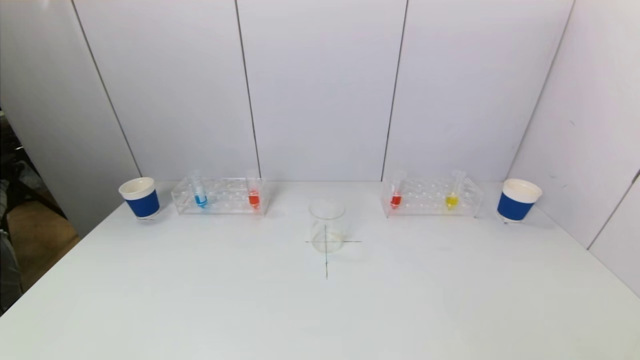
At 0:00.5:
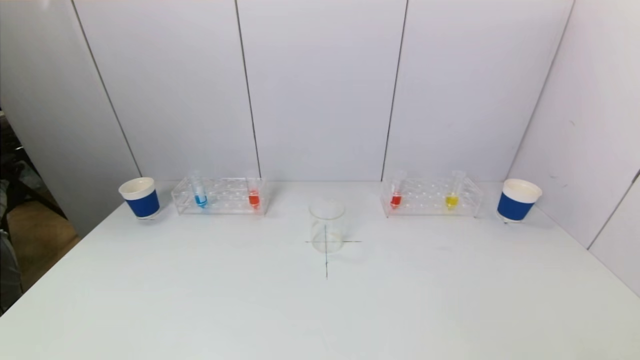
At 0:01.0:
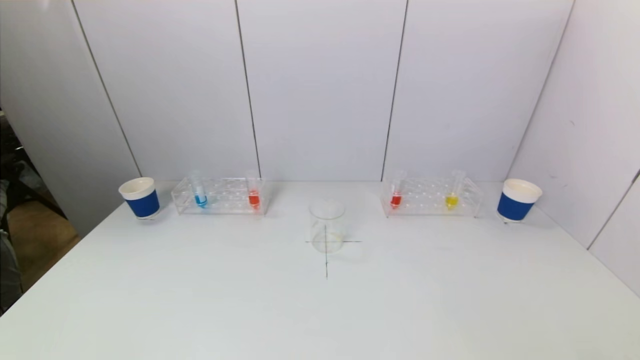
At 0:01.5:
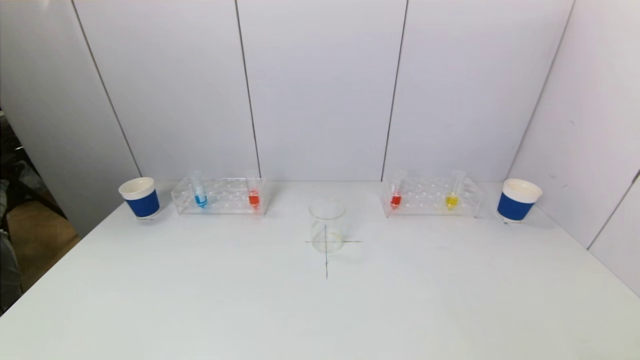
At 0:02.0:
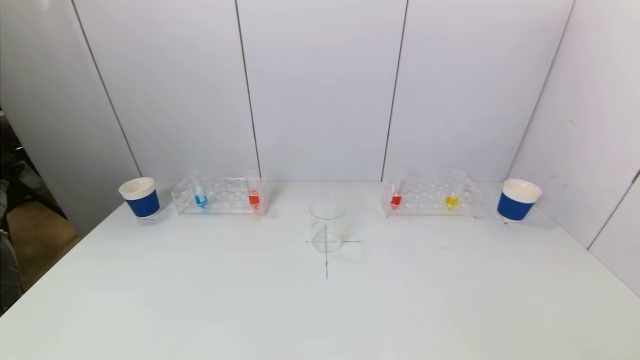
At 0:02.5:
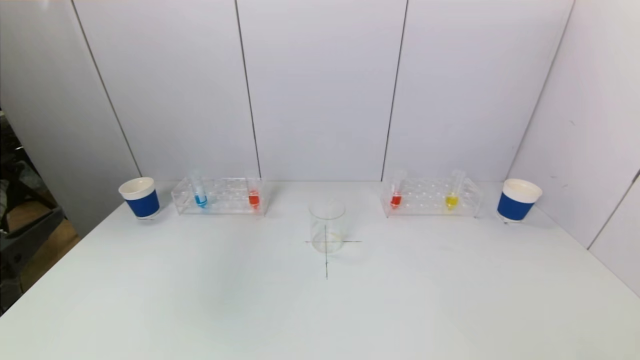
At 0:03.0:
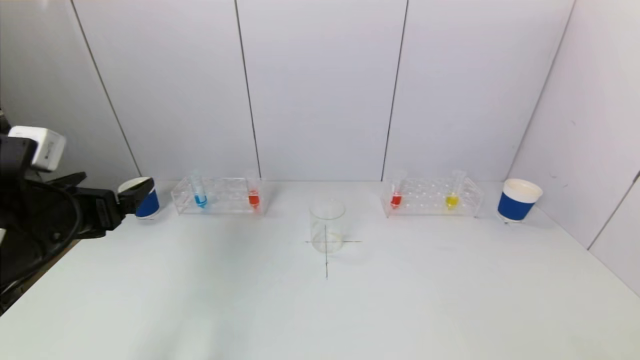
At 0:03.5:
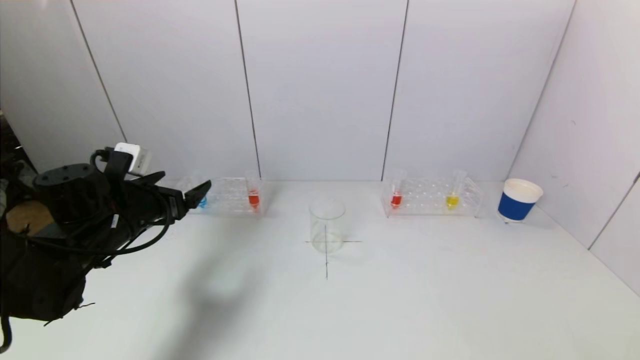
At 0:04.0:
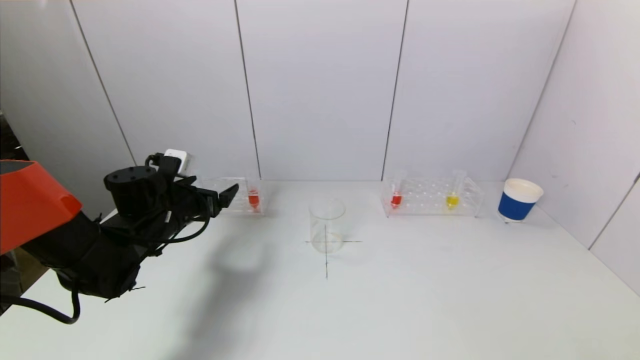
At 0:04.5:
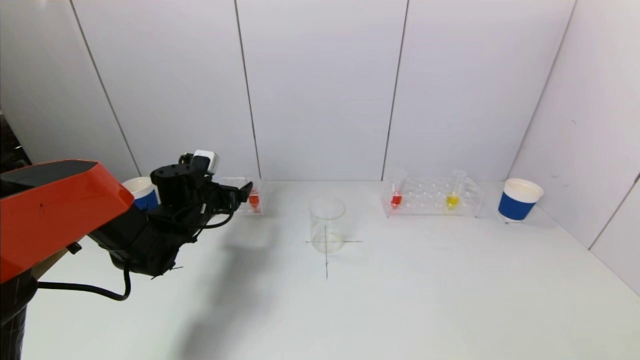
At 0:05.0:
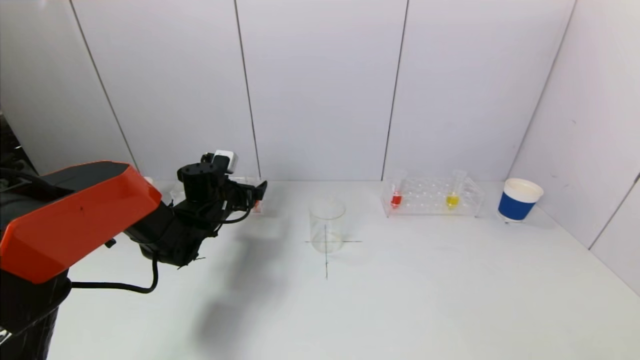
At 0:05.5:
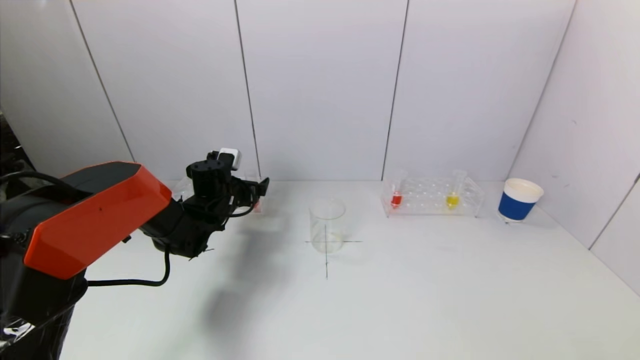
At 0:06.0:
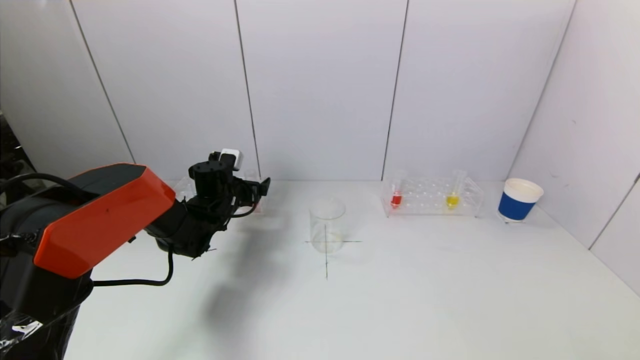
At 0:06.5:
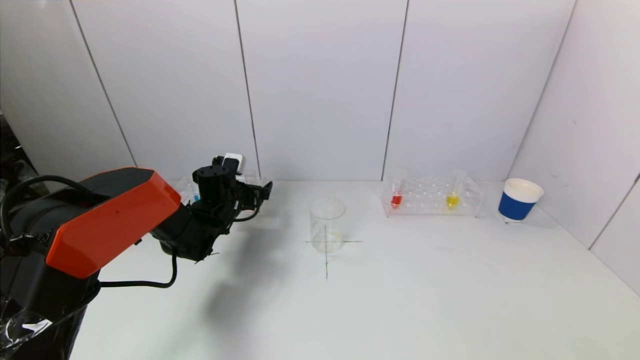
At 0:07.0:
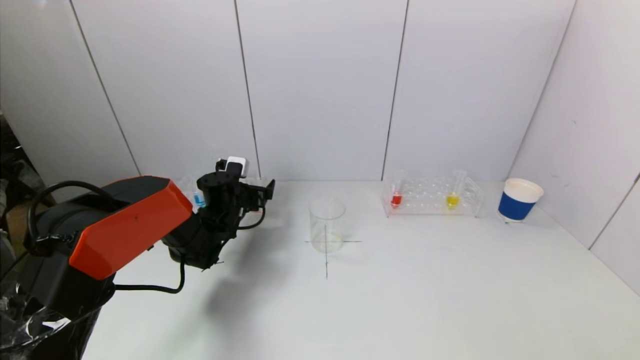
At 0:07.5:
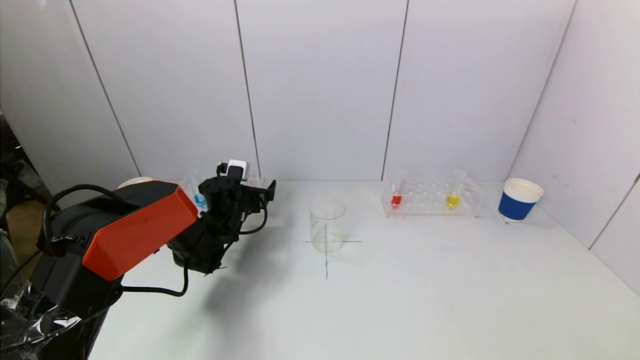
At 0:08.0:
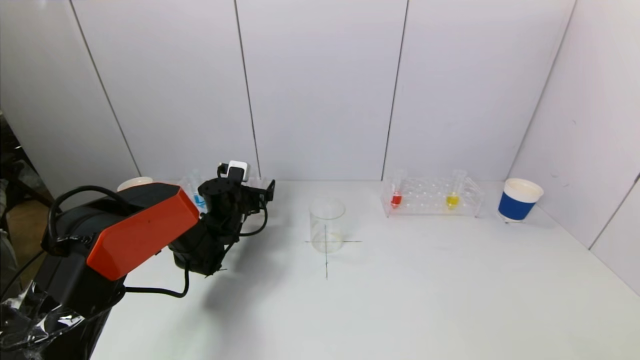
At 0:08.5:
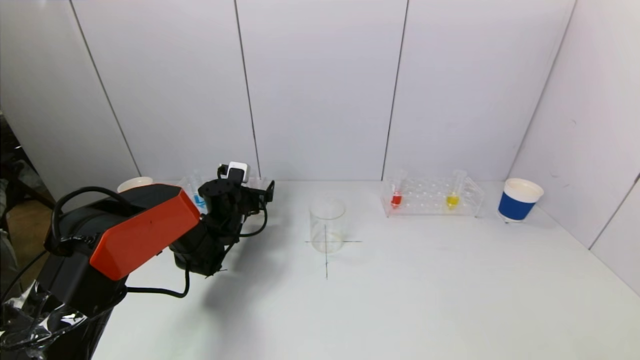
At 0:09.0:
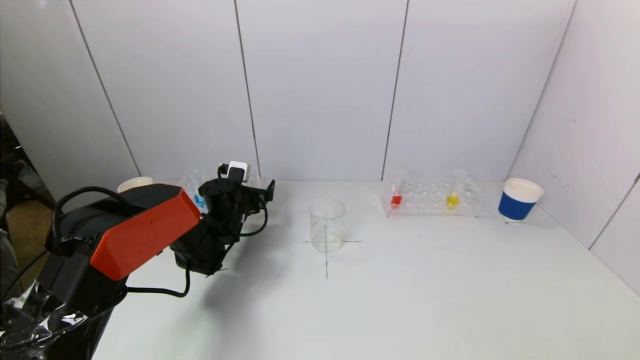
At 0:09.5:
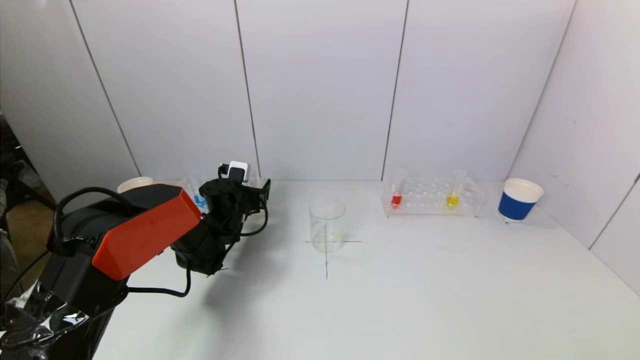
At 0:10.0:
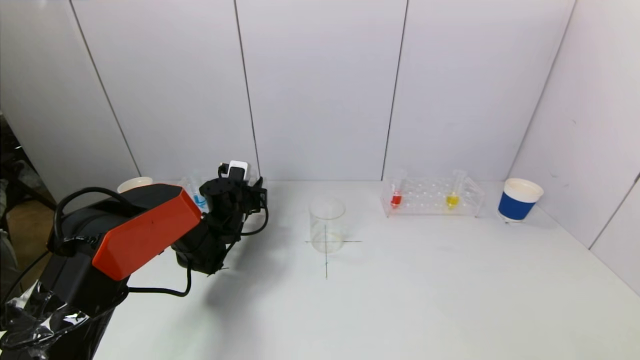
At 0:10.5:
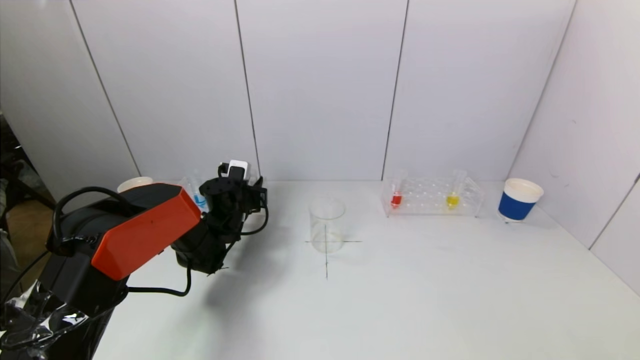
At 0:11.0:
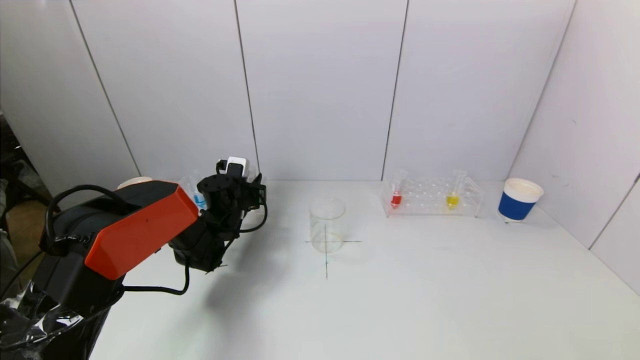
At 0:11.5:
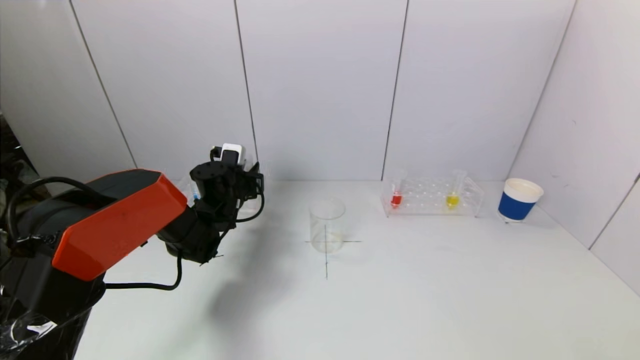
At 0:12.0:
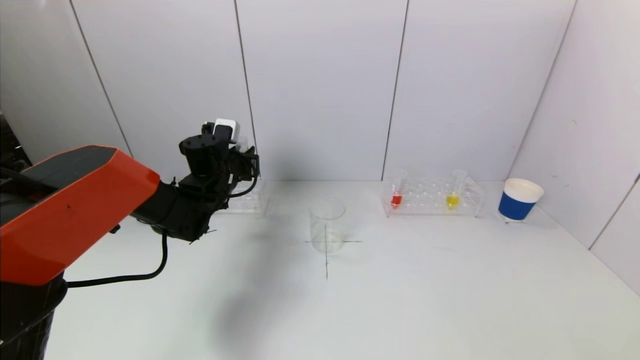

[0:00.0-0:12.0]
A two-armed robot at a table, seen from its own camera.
Task of the whole recording: pick up a test tube with pigment on left test tube rack and a test tube with pigment on right test tube rack by grippers and pour them into the beaker.
Step, 0:00.0 to 0:10.0: Grasp the red reagent with the left gripper.
0:02.0 to 0:04.0: The left gripper moves forward, approximately 40 cm.
0:04.0 to 0:06.0: The left gripper is displaced forward and to the right by approximately 10 cm.
0:06.0 to 0:08.0: The grippers make only small movements.
0:08.0 to 0:10.0: The left gripper closes.
0:10.0 to 0:12.0: The left gripper goes roughly 10 cm upward.

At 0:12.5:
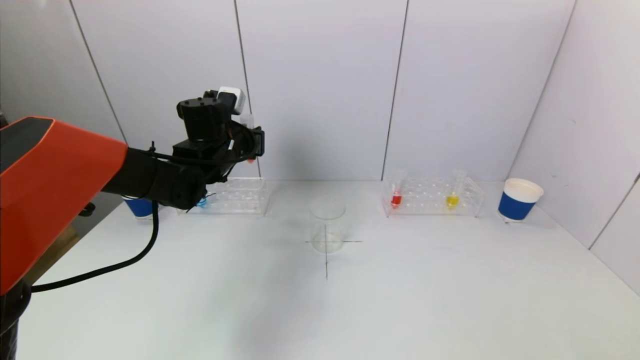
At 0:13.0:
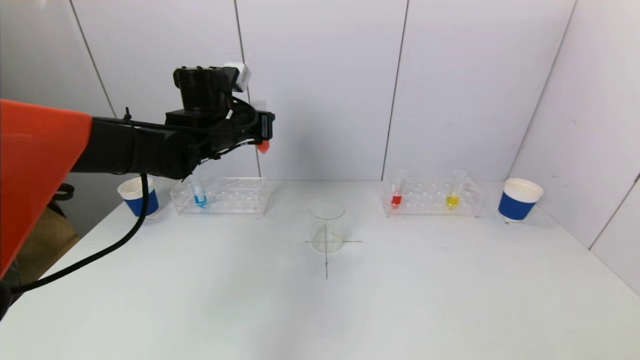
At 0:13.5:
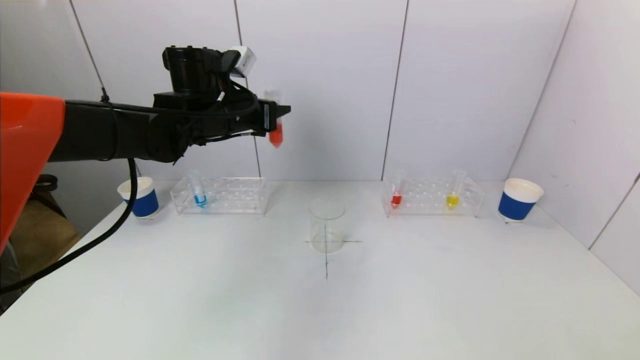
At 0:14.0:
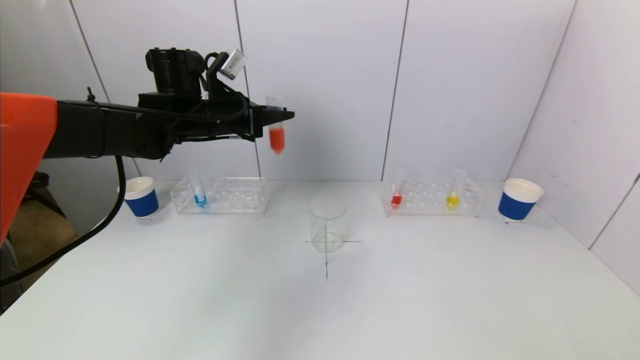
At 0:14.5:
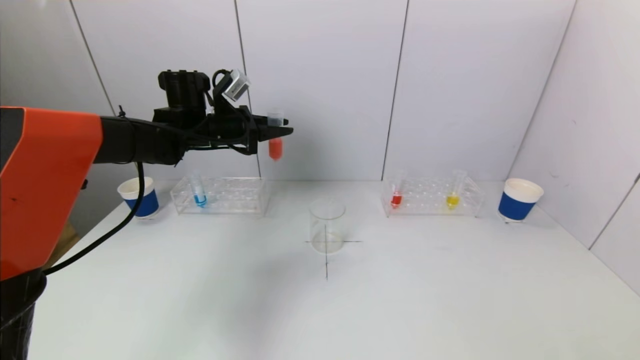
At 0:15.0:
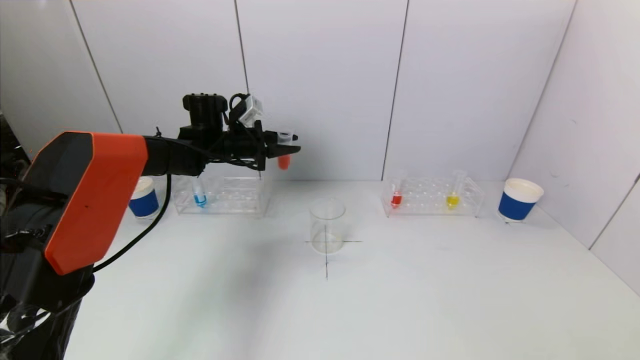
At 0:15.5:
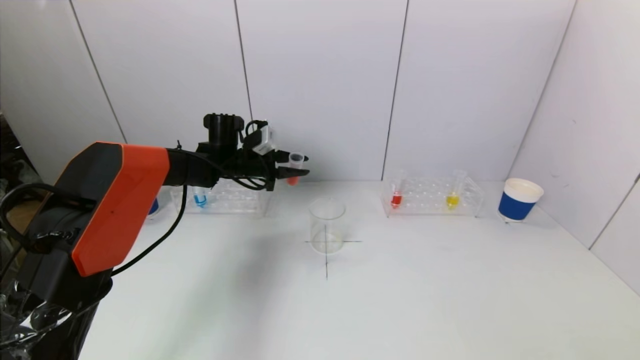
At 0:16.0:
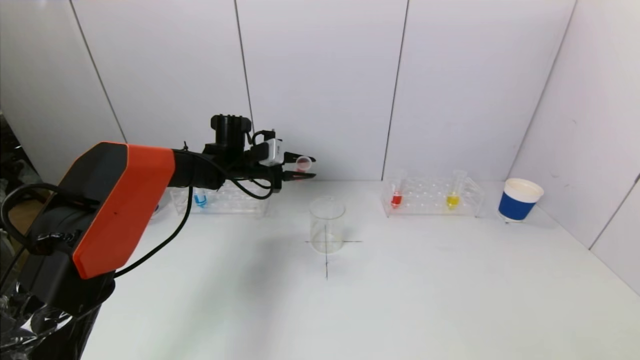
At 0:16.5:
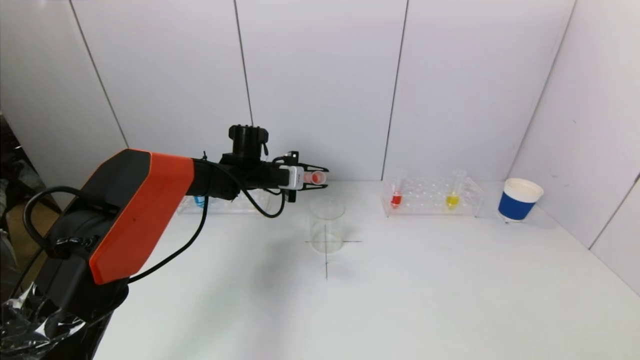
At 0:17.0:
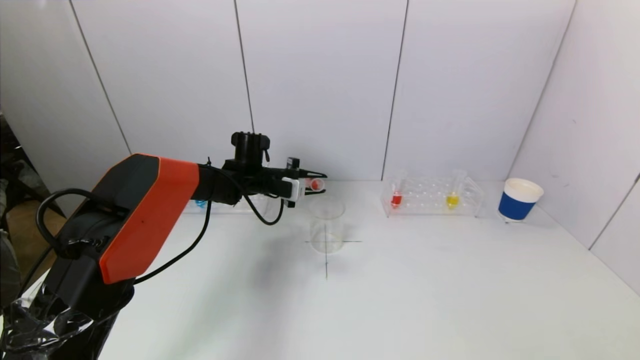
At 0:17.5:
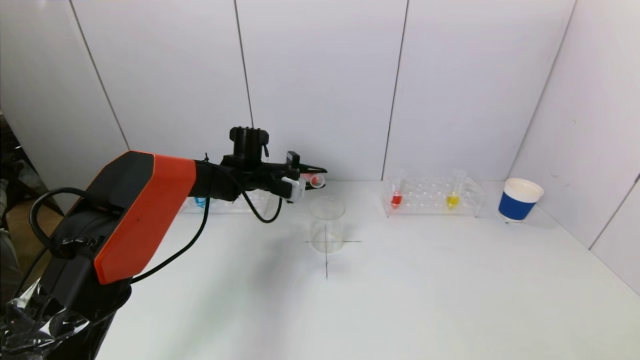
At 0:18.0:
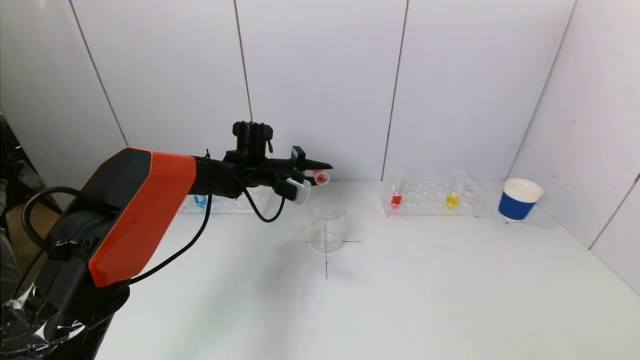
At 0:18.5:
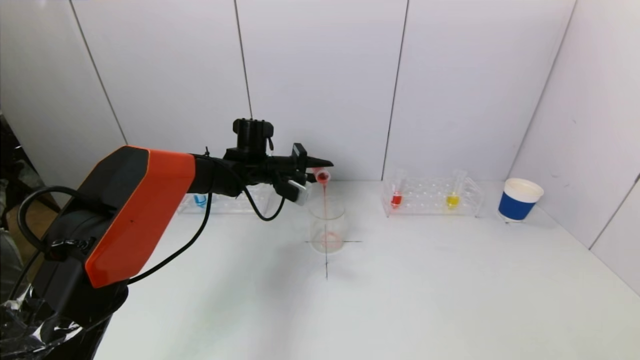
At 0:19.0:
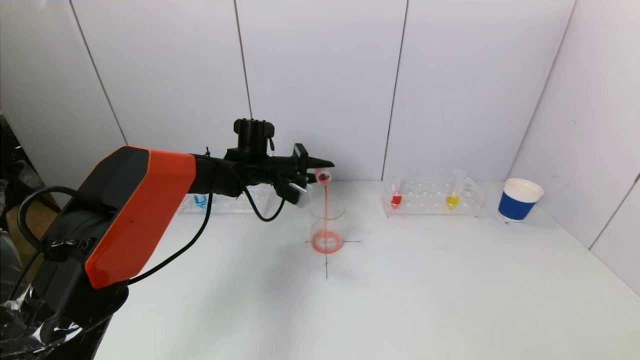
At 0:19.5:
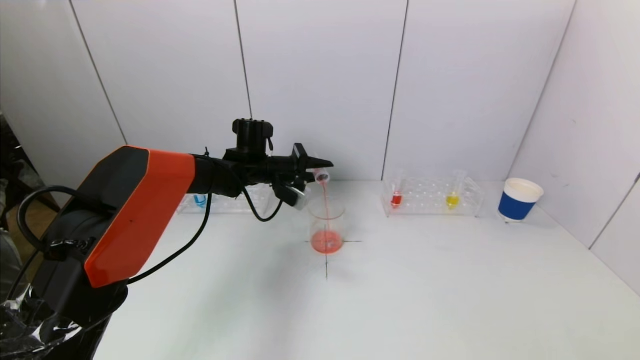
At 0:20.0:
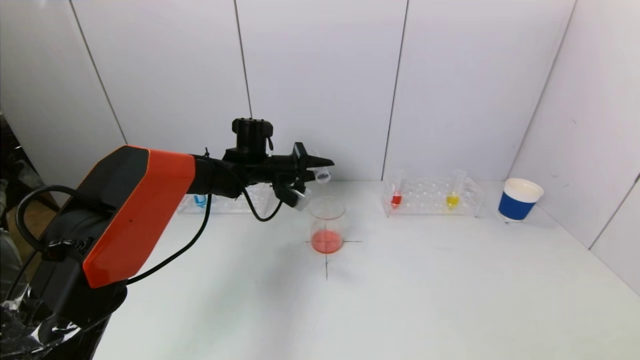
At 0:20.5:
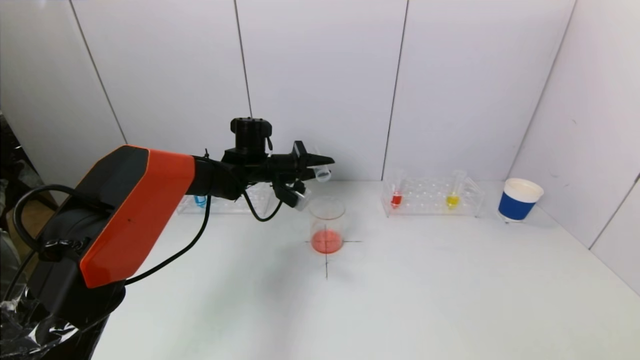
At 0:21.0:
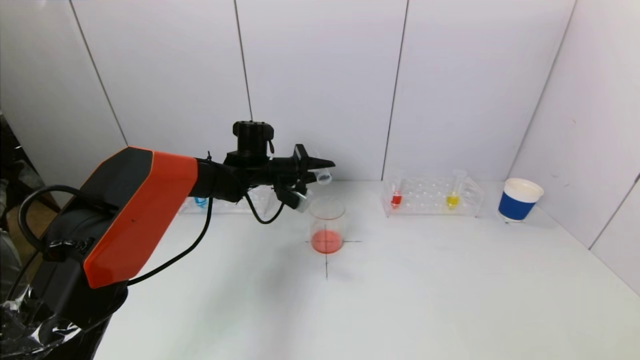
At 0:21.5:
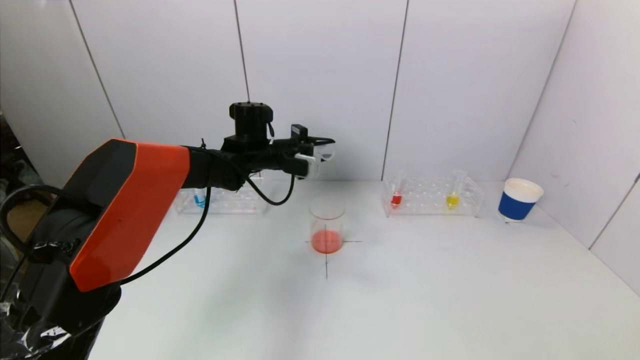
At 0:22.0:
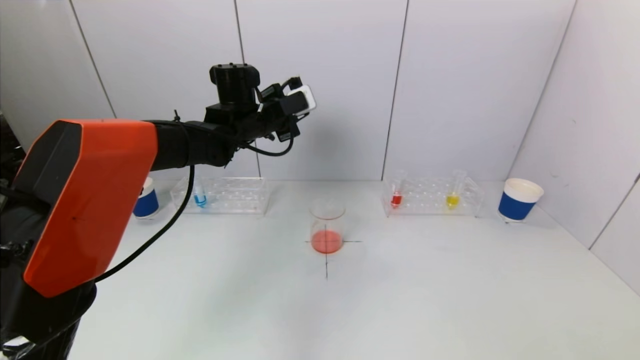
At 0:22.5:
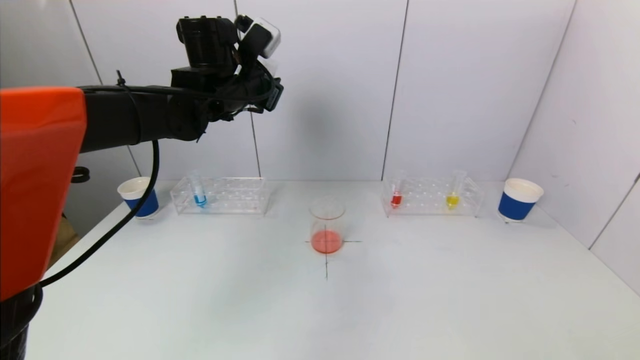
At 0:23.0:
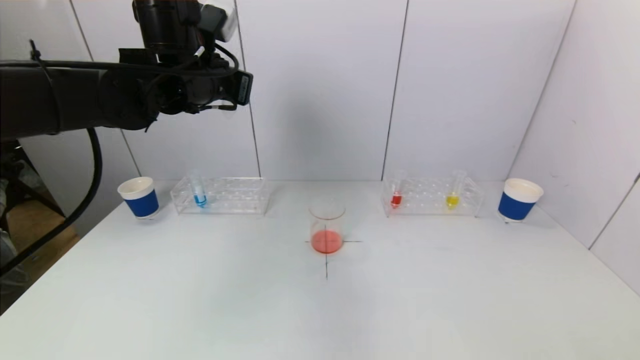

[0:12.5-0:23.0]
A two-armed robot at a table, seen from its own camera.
Task of the whole recording: pick up a test tube with pigment on left test tube rack and a test tube with pigment on right test tube rack by grippers and pour them into the beaker.
Step, 0:12.5 to 0:20.5: Pour the red reagent into the graduated cylinder with the left gripper.
0:12.5 to 0:14.5: The left gripper ends up roughly 5 cm from where it was.
0:14.5 to 0:16.5: The left gripper travels downward and to the right by about 15 cm.
0:19.0 to 0:21.0: There are only small adjustments of the grippers.
0:21.0 to 0:23.0: The left gripper travels upward and backward by approximately 20 cm.
